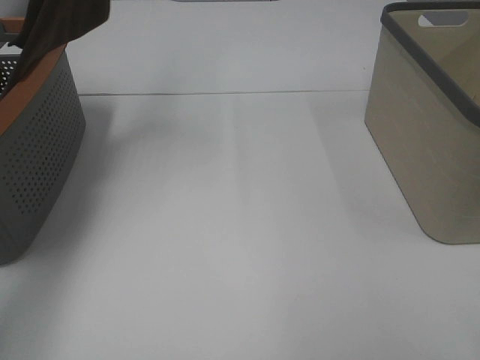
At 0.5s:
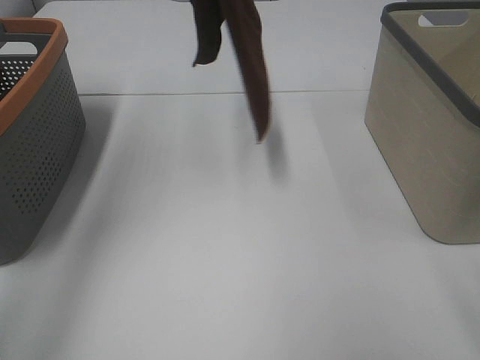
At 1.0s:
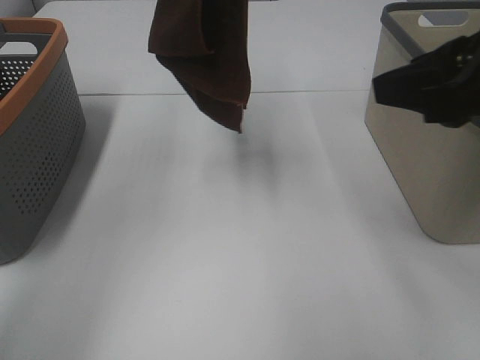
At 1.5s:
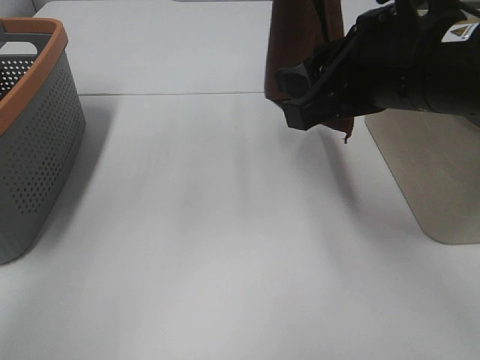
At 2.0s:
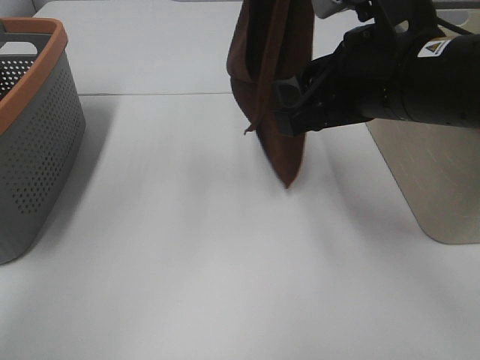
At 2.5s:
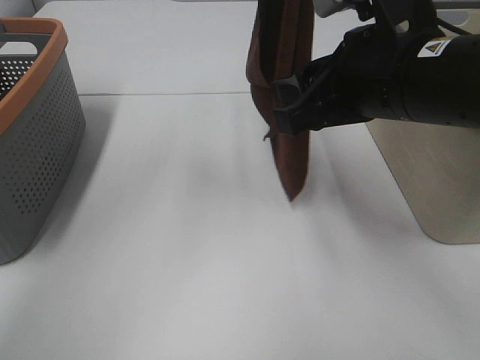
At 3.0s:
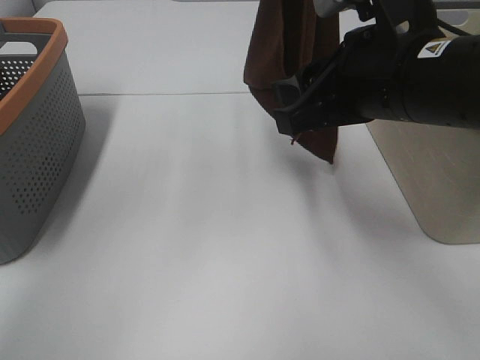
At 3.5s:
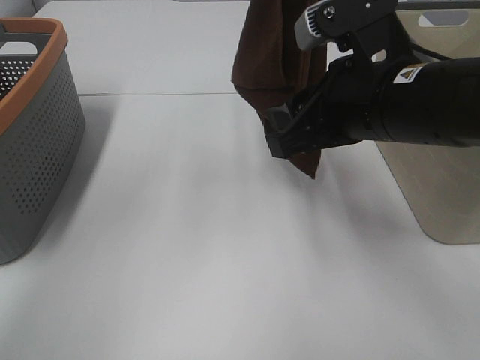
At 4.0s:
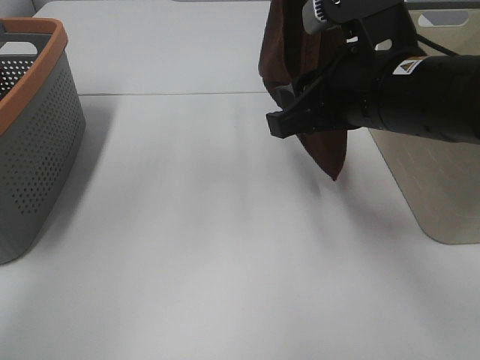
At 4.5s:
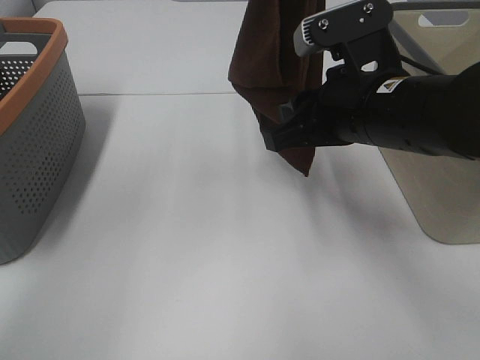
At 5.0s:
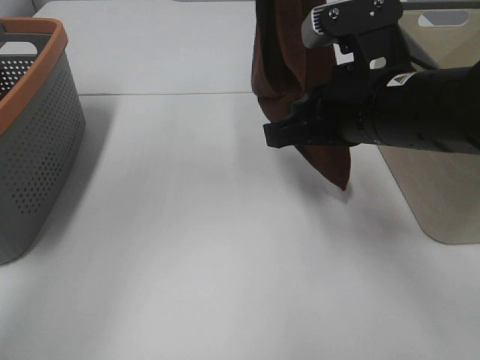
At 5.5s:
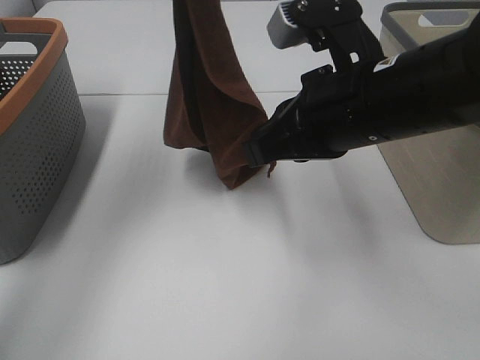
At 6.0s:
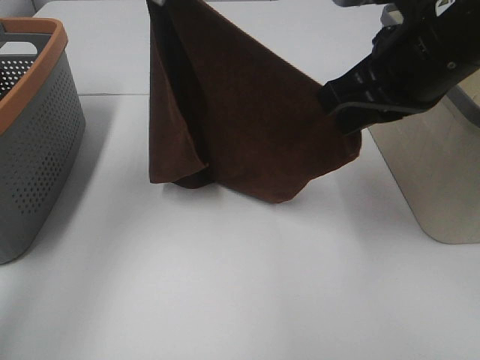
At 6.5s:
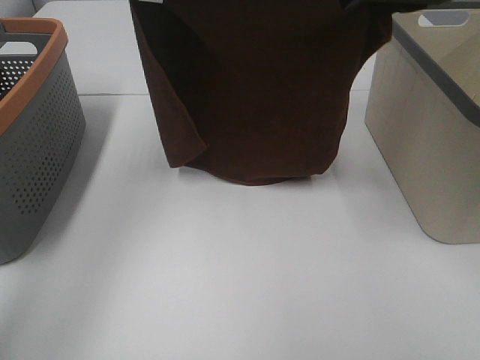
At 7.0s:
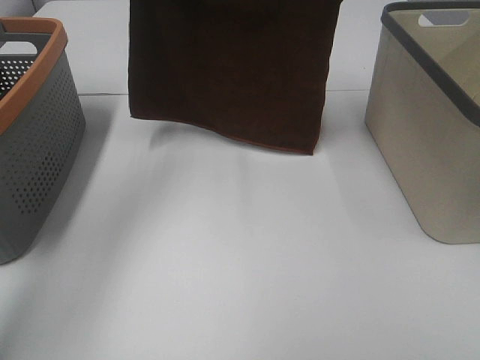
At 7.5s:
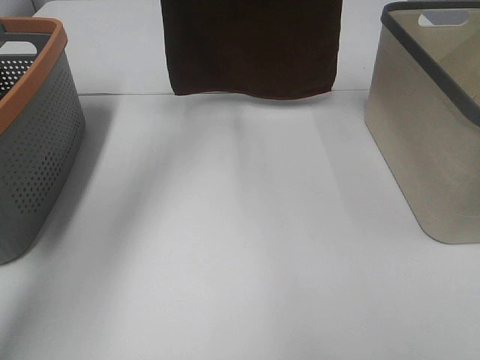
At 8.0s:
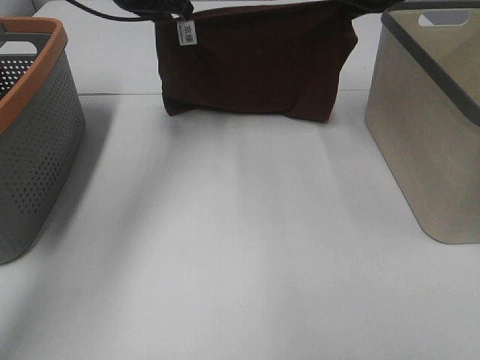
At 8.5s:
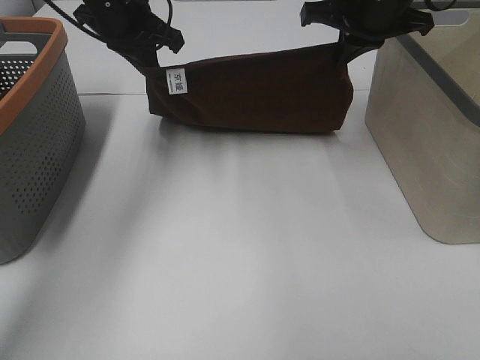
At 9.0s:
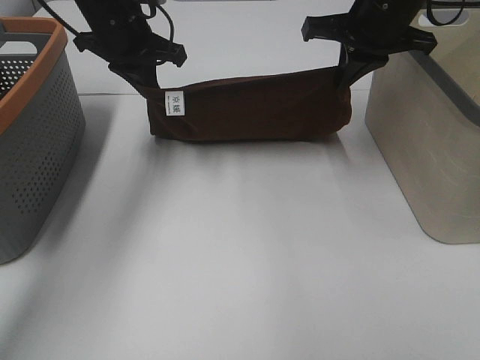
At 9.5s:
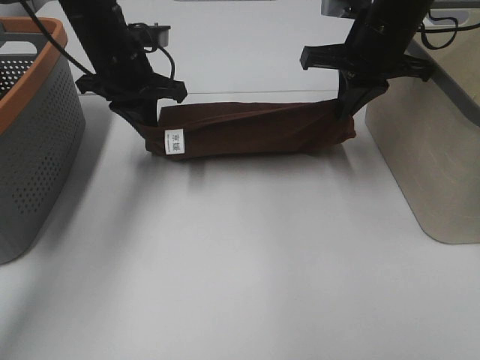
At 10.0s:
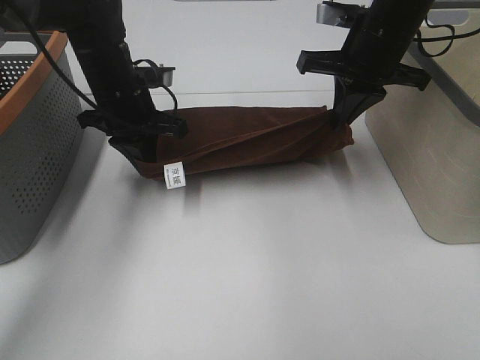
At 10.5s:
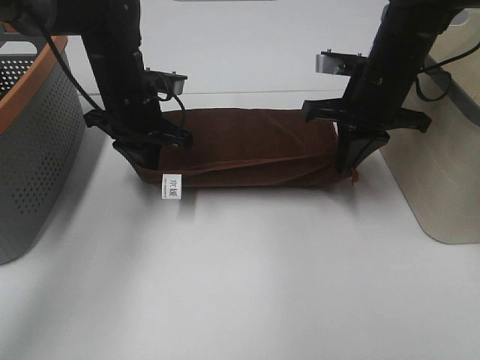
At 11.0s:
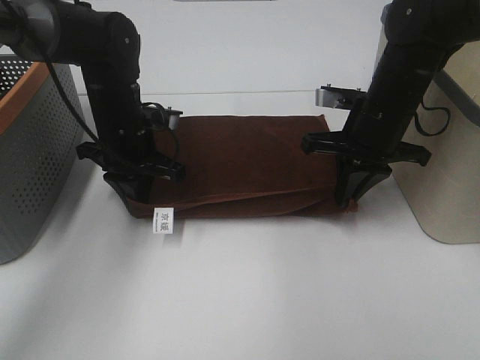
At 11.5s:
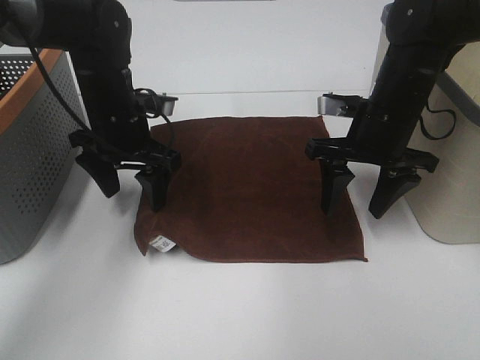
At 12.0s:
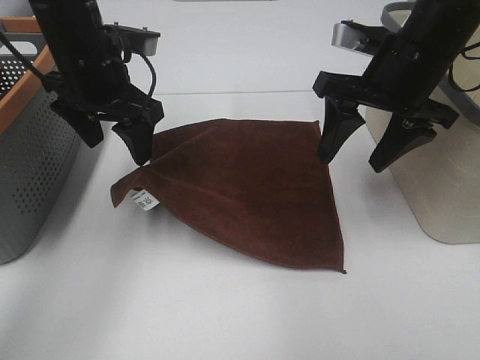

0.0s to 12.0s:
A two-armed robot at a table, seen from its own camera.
Task of the whole recording: Remove the towel and place it.
Step, 0.0s to 3.0s: Right hand: grab a corner of the brown towel and straighten it.
Step, 3.5s to 6.5s: Left hand: spread the brown towel flat on the table.
Step, 3.5s to 6.5s: Right hand: spread the brown towel flat on the table.
0.0s to 2.0s: The left gripper shifts about 15 cm to the right. The right gripper heads forward and to the left, covering roughly 25 cm.
2.0s to 4.0s: The grippers stay close to where they were, moving slightly.
4.0s to 6.0s: The left gripper travels to the left and downward by about 10 cm, while the right gripper changes place by some 5 cm, and closes its fingers.
6.0s to 8.0s: The left gripper goes approximately 15 cm downward and forward, while the right gripper is displaced forward by roughly 20 cm.
8.0s to 10.0s: The left gripper goes about 15 cm downward and backward, while the right gripper heads downward, covering approximately 5 cm.
10.0s to 12.0s: The left gripper travels upward by approximately 5 cm, and opens its fingers. Meanwhile the right gripper heads backward, covering some 5 cm, moves some 10 cm downward and comes back, and opens its fingers.

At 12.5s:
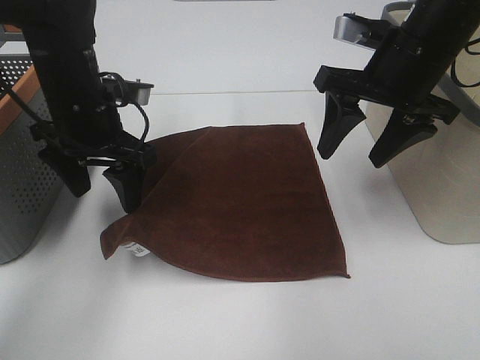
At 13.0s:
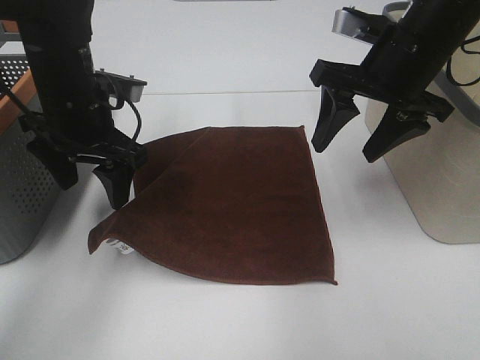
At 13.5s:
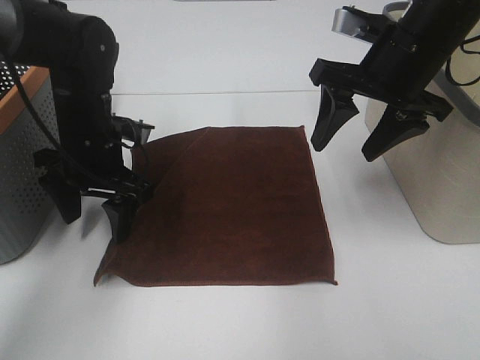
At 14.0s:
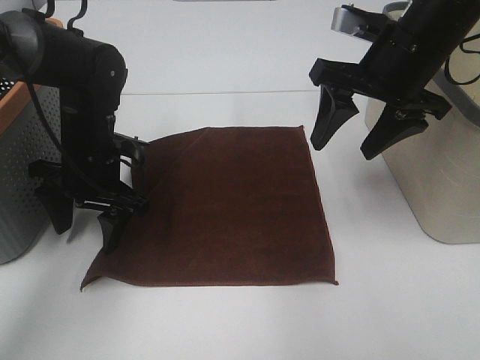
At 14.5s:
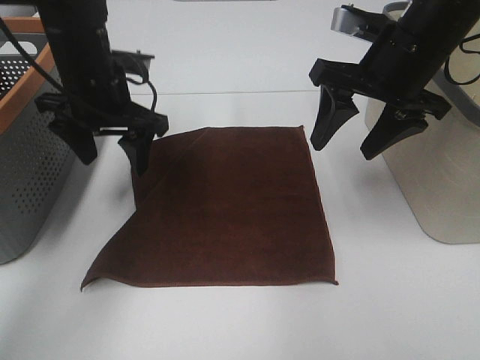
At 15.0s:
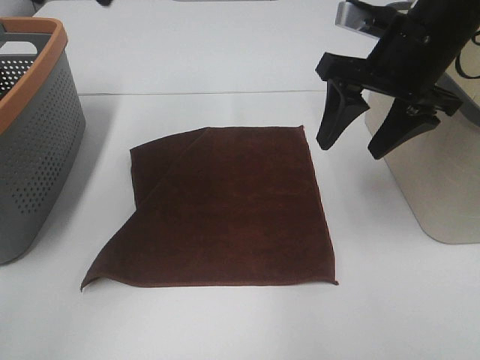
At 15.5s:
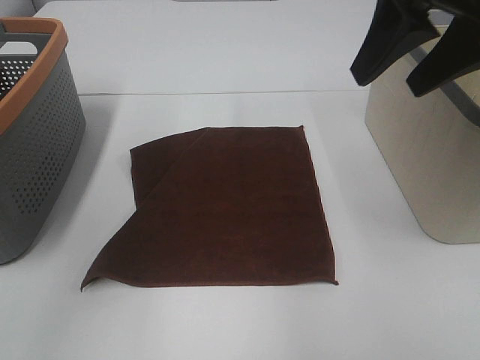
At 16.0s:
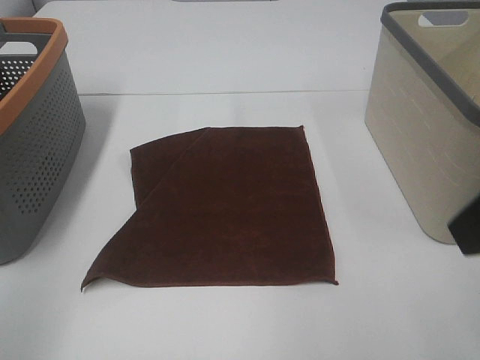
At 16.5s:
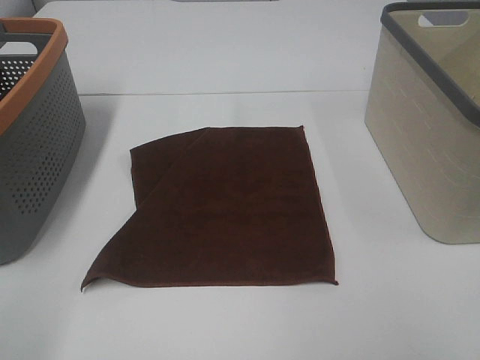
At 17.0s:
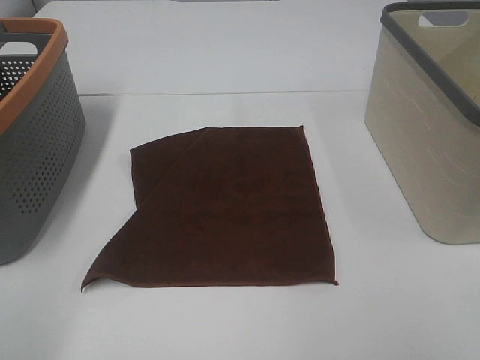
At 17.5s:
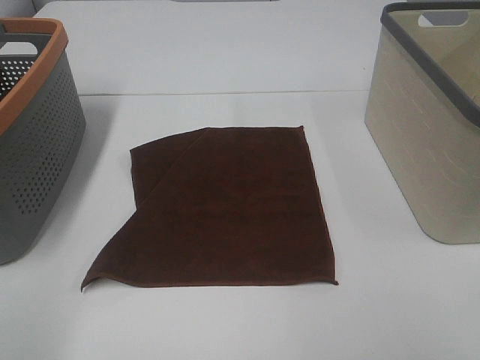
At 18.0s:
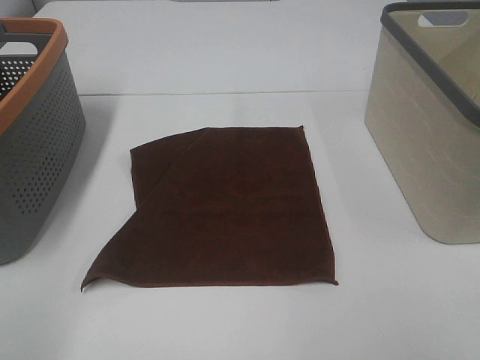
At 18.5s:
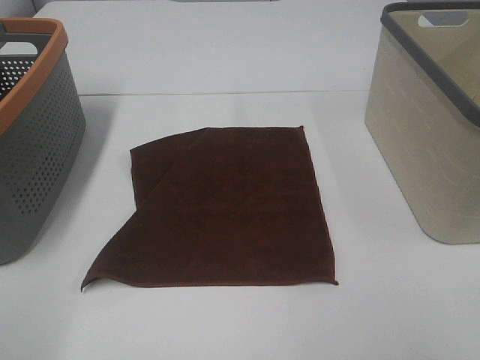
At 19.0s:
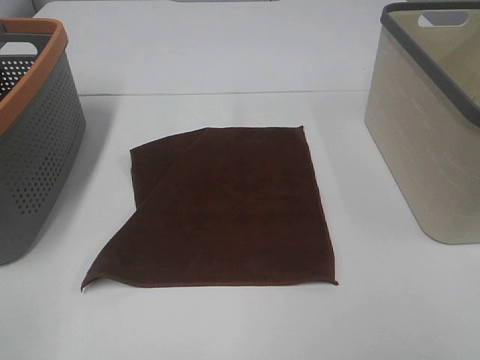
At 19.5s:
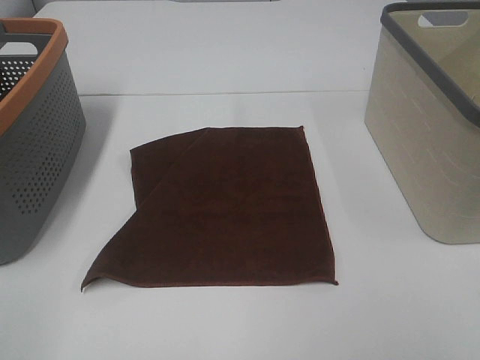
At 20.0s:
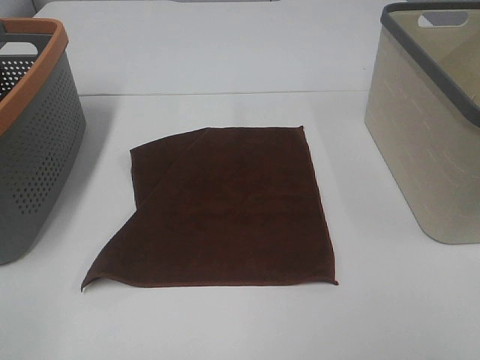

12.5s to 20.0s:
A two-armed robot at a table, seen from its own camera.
Task of the whole recording: Remove the towel and place it.
12.5s to 14.5s: The left gripper moves roughly 10 cm downward and comes back.
14.5s to 16.5s: The left gripper moves backward and to the left, approximately 35 cm. Meanwhile the right gripper moves backward, approximately 30 cm.

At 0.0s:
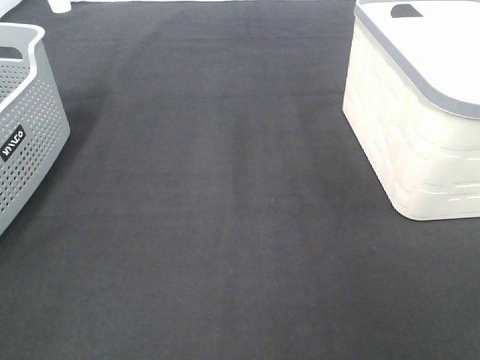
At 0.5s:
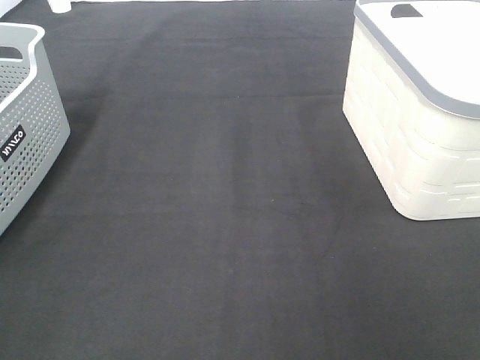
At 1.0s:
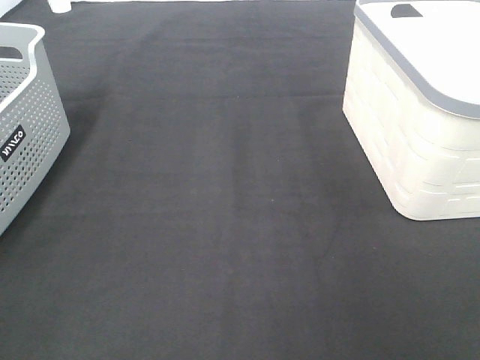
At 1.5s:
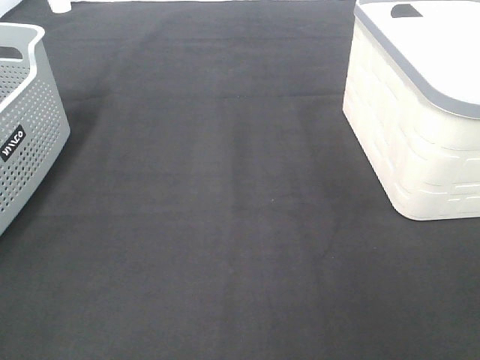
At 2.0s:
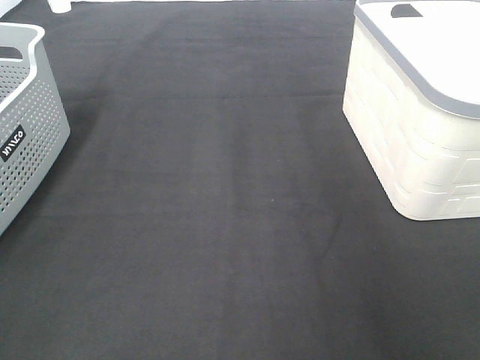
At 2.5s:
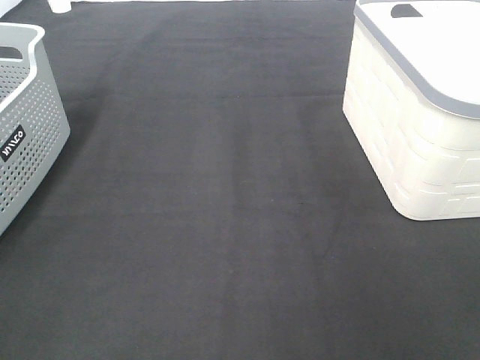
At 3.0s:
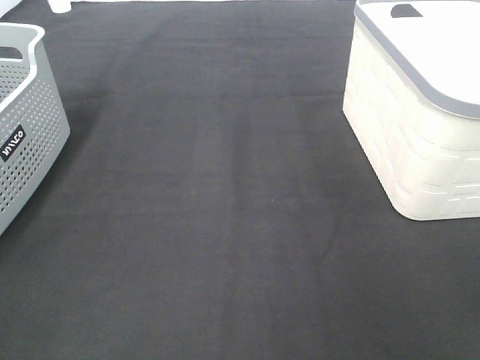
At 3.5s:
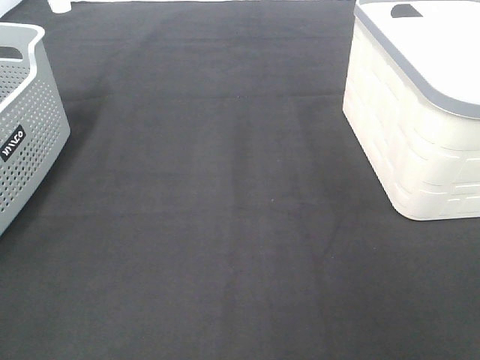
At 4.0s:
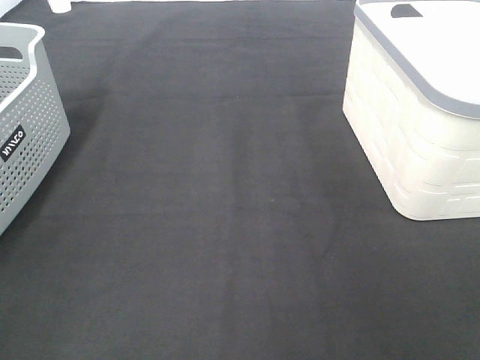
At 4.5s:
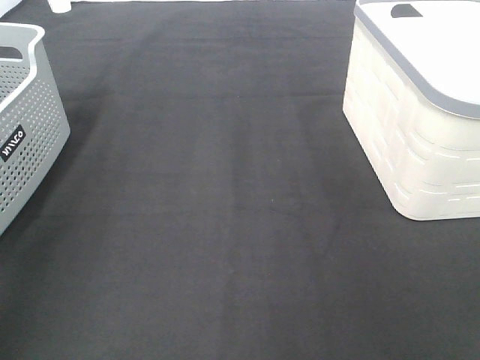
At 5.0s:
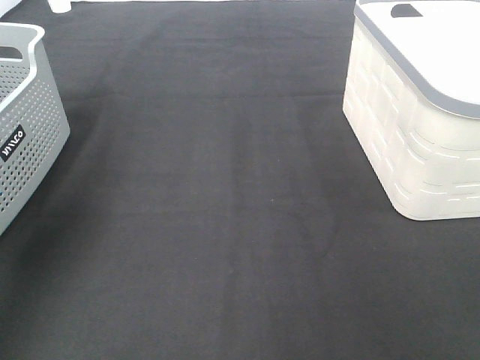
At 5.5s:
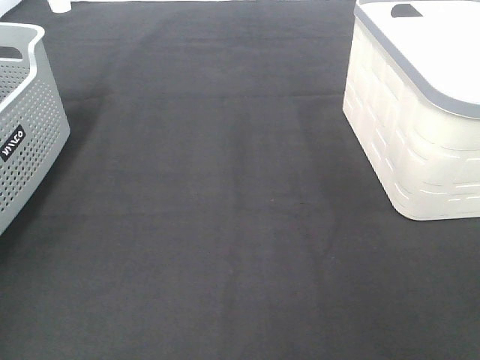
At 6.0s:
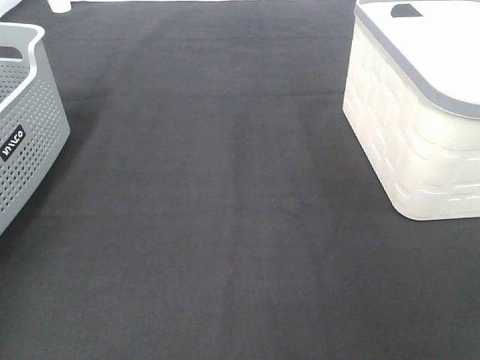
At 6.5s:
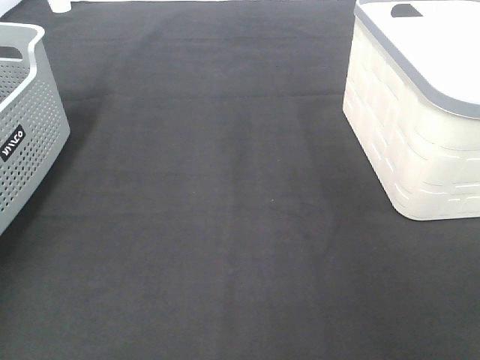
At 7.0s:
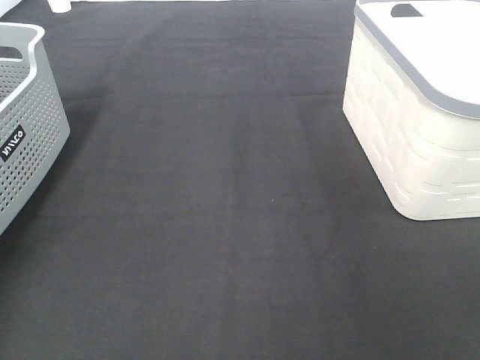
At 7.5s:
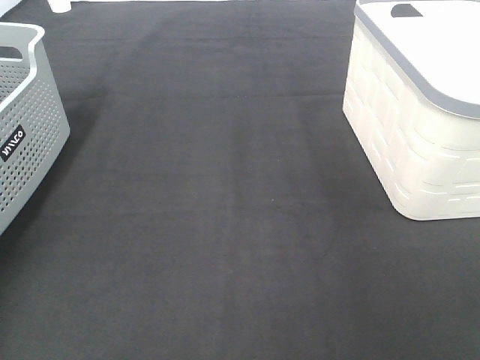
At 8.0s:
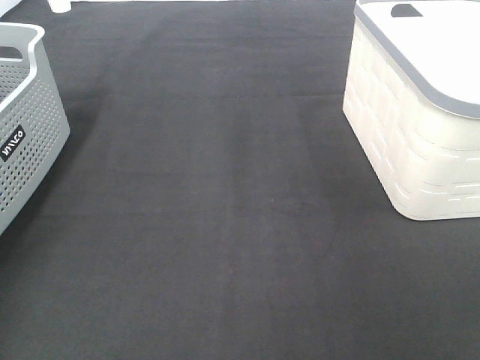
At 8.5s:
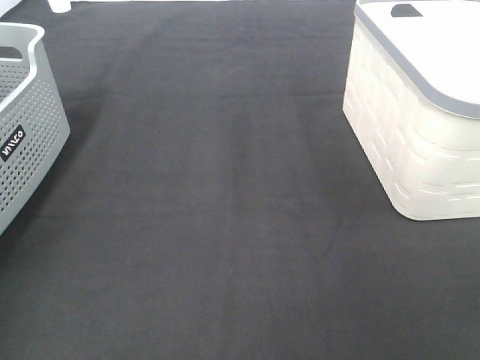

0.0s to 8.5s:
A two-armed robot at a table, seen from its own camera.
Task of the whole recording: Remove the towel and place it.
0.0s to 2.0s: Both grippers stay put.
